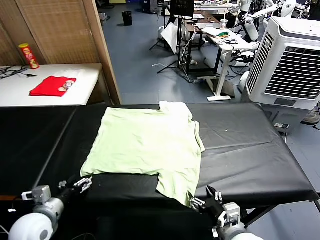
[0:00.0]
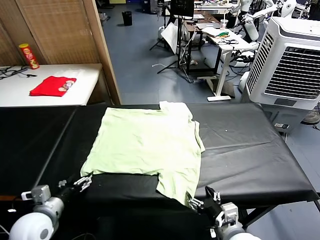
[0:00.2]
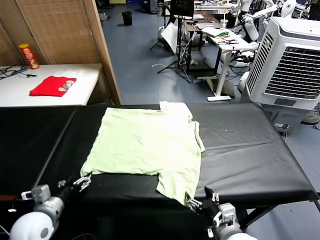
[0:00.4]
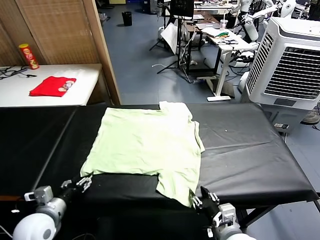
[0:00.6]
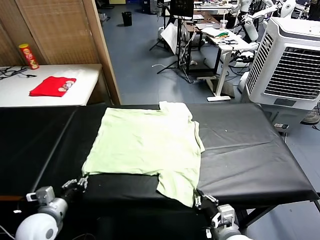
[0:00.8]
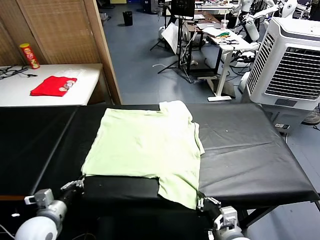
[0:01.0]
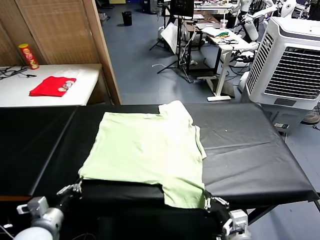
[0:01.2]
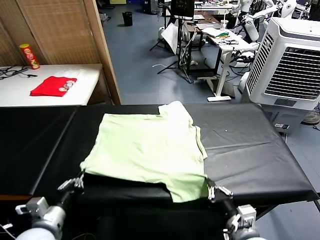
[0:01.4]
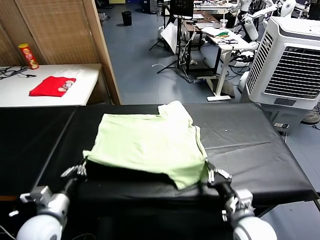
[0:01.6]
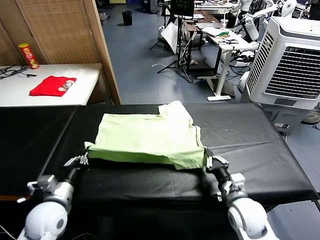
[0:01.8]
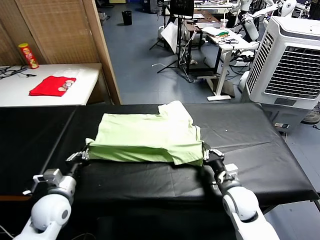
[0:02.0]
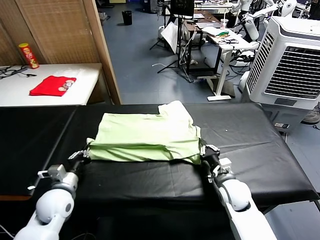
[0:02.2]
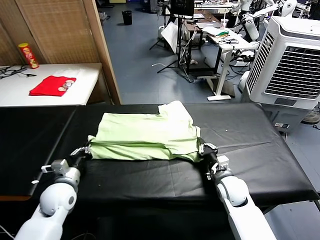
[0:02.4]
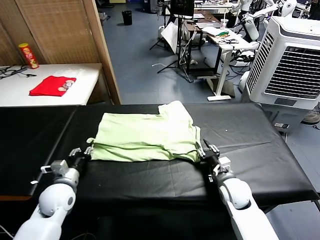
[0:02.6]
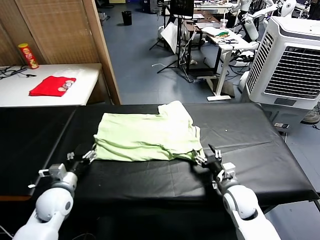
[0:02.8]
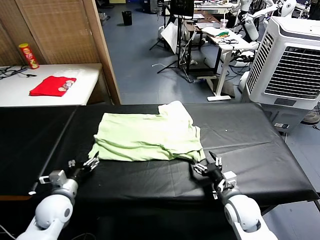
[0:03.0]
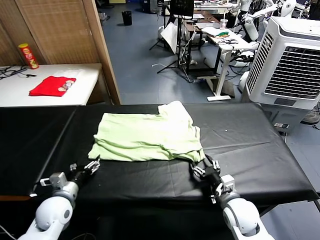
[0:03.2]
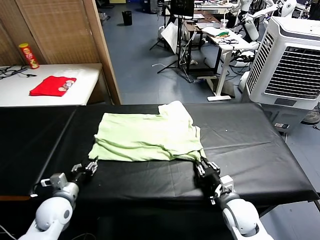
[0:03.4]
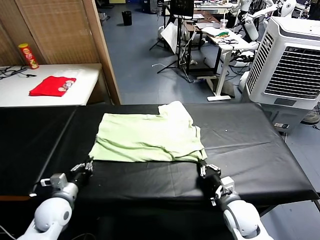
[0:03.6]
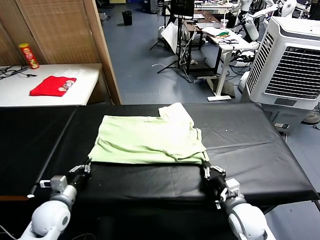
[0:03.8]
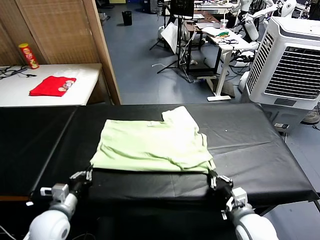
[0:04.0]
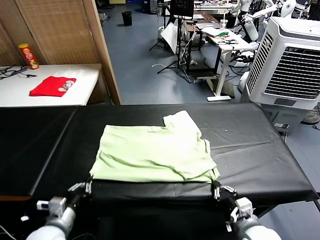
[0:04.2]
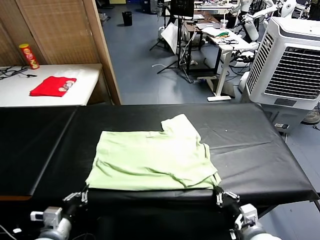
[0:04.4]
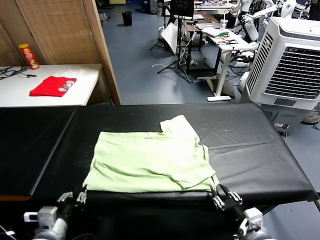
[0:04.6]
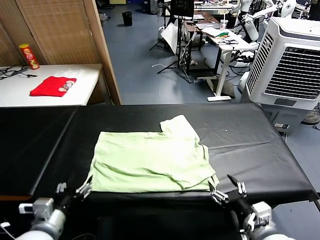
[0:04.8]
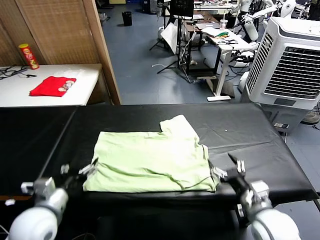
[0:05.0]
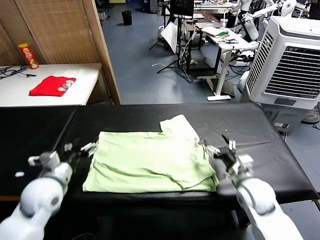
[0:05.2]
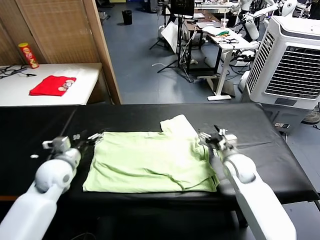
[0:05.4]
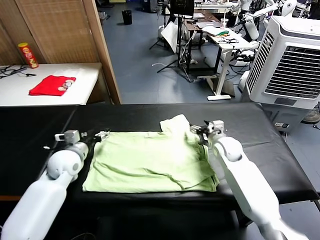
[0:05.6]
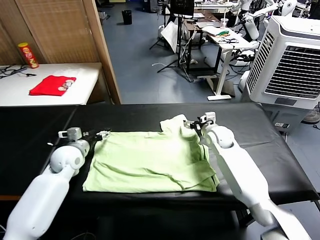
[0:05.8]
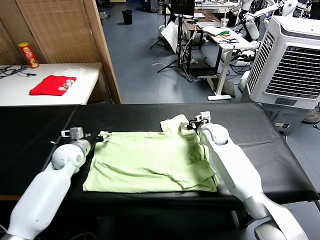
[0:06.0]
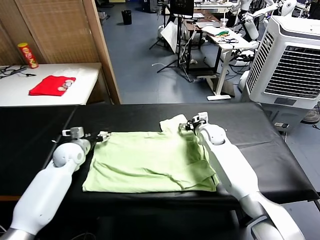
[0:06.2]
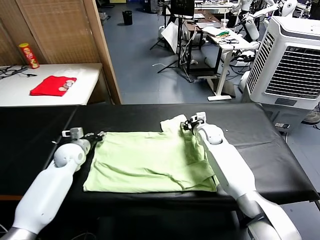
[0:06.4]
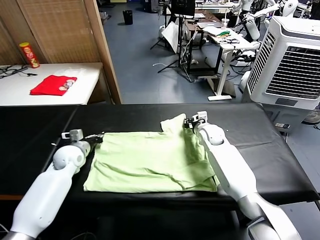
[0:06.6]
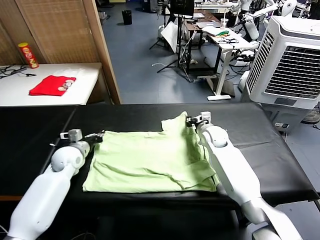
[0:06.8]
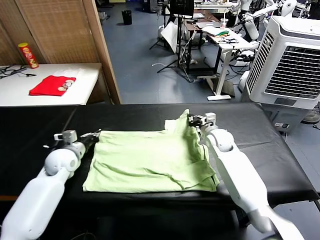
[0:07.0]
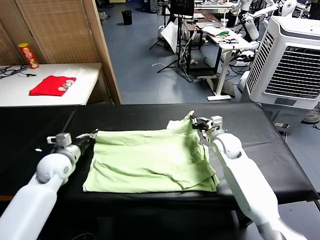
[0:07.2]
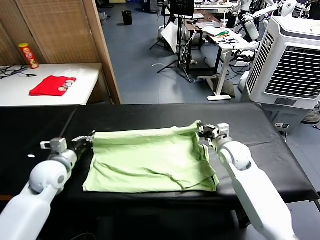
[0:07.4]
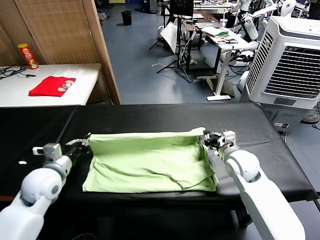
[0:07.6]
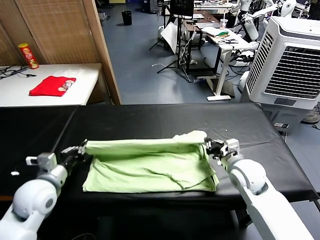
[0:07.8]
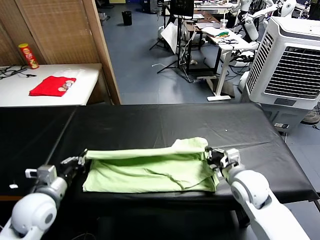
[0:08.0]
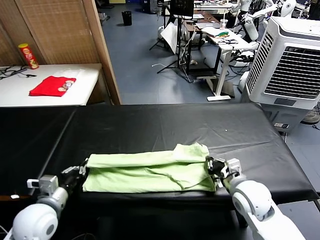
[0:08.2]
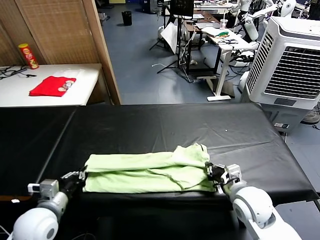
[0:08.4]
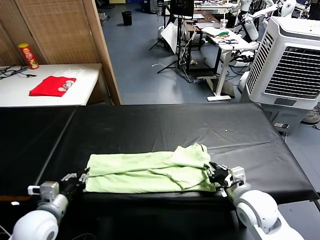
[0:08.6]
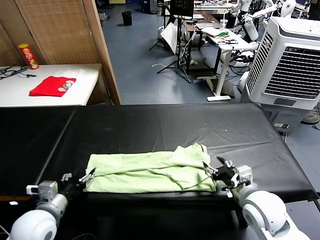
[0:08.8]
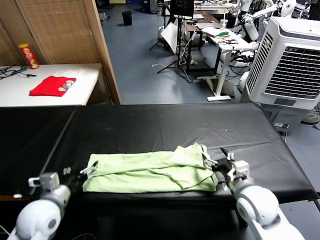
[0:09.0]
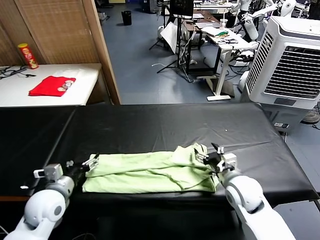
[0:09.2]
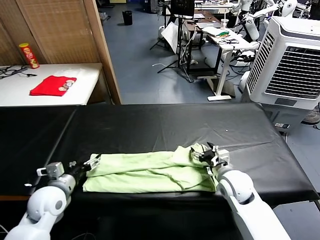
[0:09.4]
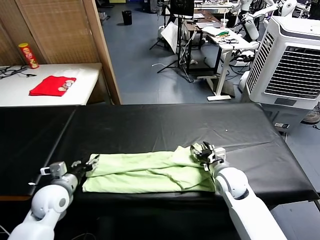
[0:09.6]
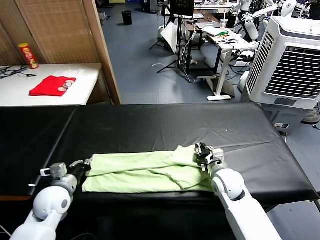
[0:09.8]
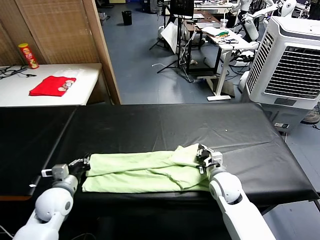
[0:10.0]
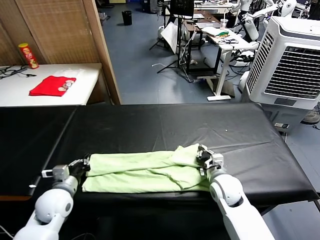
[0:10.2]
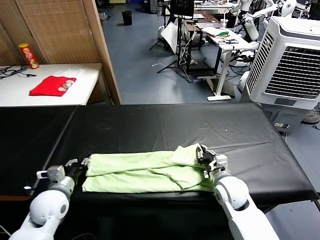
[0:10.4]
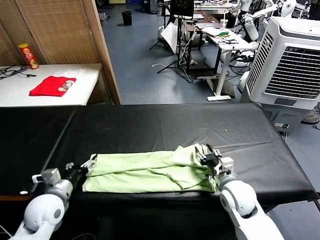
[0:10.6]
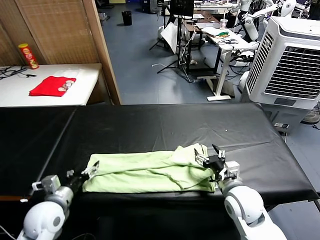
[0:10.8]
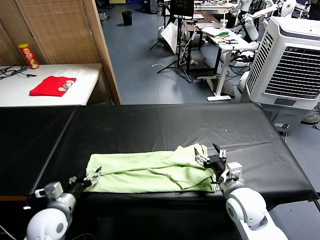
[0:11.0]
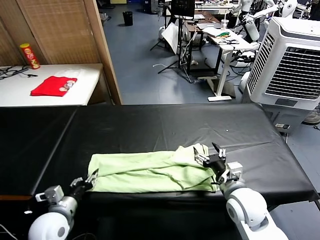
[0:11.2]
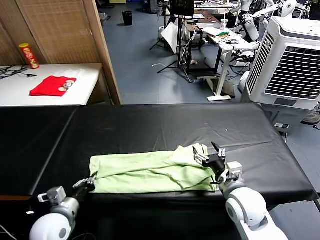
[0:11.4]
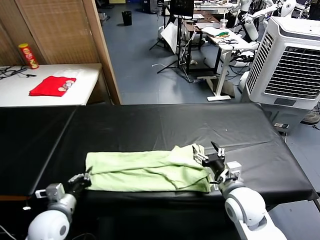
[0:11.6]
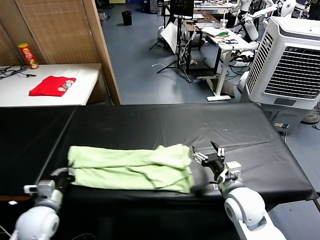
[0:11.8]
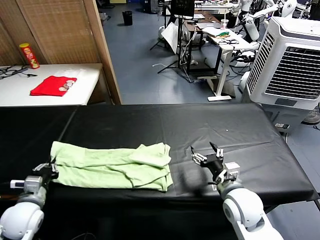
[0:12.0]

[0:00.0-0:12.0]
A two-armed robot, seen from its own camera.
Task of the whole recording: fold and organize the clothes.
Step, 0:00.0 to 0:01.0: use both grippers simultaneously to clamp the lower edge of the clothing fabric.
Step, 0:01.2 to 0:02.6: use both grippers to drag the lower edge of the fabric forward and fold it over the upper edge.
Step, 0:03.0 to 0:04.6: Drag the clothes downward with both gripper.
Step, 0:04.8 to 0:06.4: use both grippers simultaneously to clamp the upper edge of the clothing fabric.
Step, 0:06.8 to 0:08.8: use both grippers to drag the upper edge of the fabric backward and fold it over the lower edge.
Step, 0:09.0 to 0:11.2: use the left gripper to clamp the left edge of the fabric.
0:01.6 to 0:03.0: The left gripper moves downward and forward, some 10 cm, and opens; the right gripper reaches some 10 cm forward, then returns, and opens up.
0:03.0 to 0:04.4: The left gripper goes about 15 cm backward, and closes up, while the right gripper moves backward and upward, roughly 15 cm, and closes, then reopens.
0:04.4 to 0:06.0: Both grippers travel together forward, approximately 35 cm. The left gripper opens its fingers. The right gripper opens up.
0:06.0 to 0:07.6: The right gripper moves backward, about 20 cm, and closes; the left gripper travels backward and upward by about 15 cm, and closes.
0:07.6 to 0:09.0: The grippers both shift backward by some 5 cm. The left gripper opens its fingers, while the right gripper opens.
0:09.0 to 0:10.4: The left gripper shifts by approximately 5 cm, and closes. Meanwhile the right gripper closes its fingers.
0:10.4 to 0:12.0: The left gripper heads to the left, covering about 5 cm, and closes its fingers. The right gripper shifts approximately 5 cm backward, and opens.

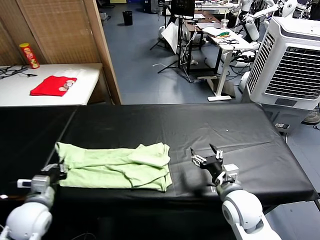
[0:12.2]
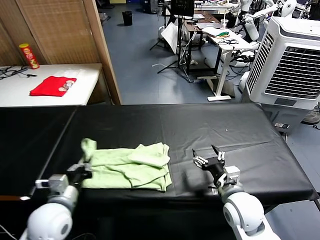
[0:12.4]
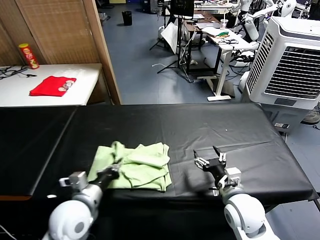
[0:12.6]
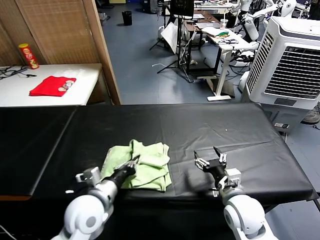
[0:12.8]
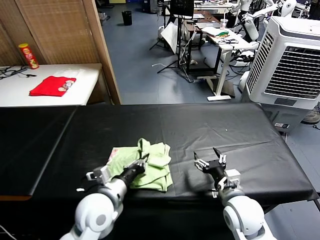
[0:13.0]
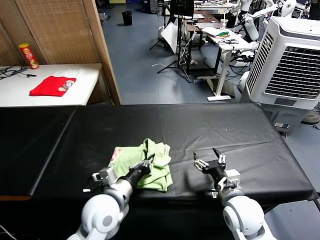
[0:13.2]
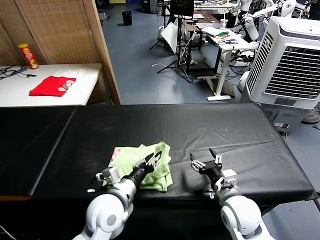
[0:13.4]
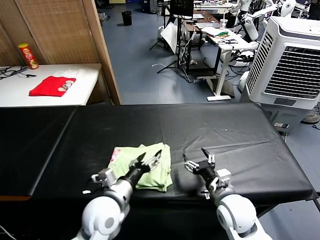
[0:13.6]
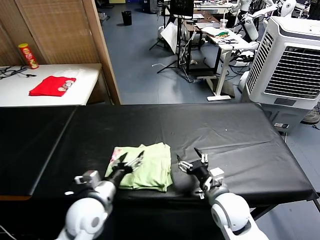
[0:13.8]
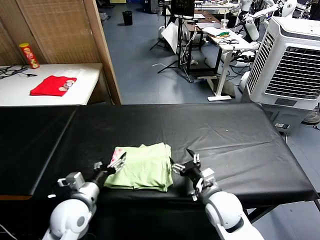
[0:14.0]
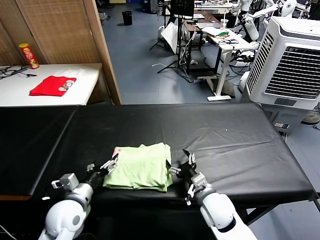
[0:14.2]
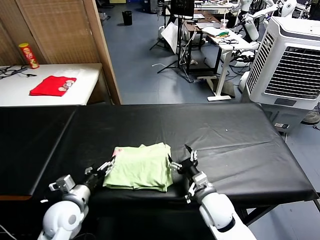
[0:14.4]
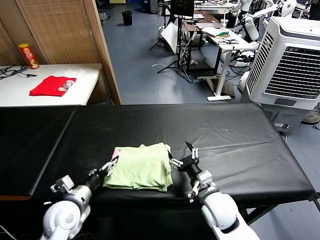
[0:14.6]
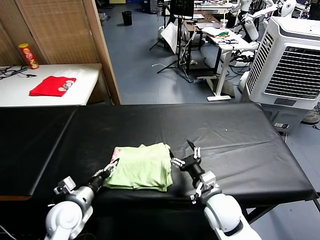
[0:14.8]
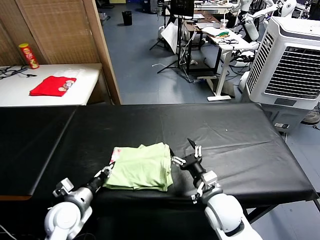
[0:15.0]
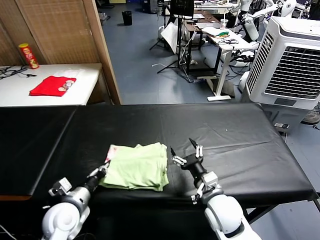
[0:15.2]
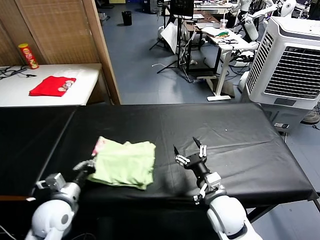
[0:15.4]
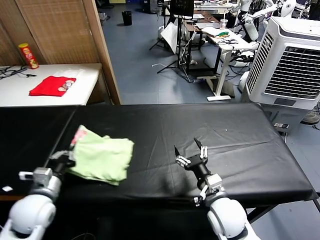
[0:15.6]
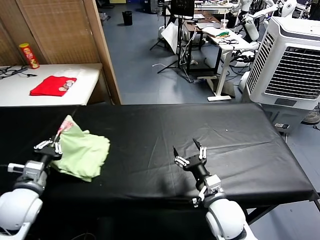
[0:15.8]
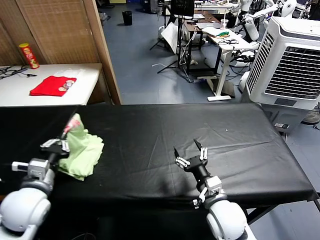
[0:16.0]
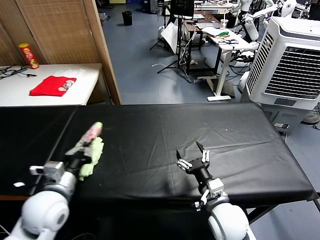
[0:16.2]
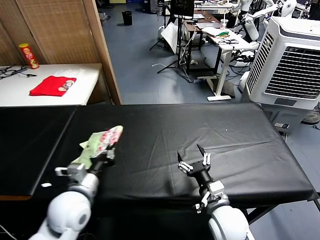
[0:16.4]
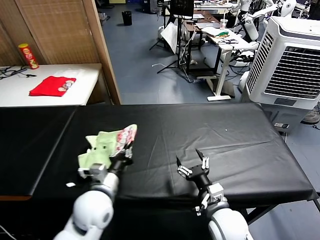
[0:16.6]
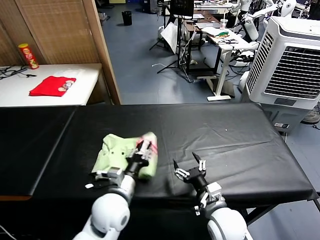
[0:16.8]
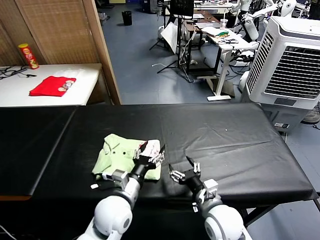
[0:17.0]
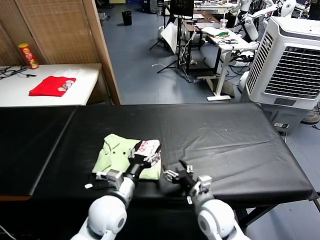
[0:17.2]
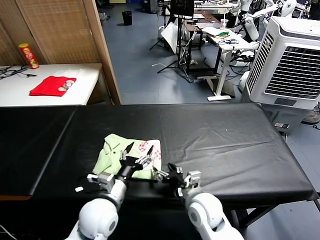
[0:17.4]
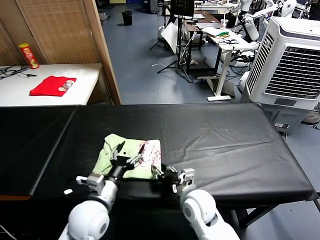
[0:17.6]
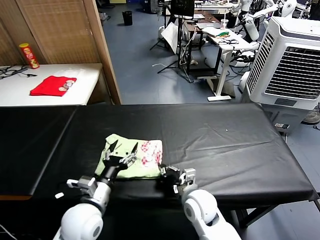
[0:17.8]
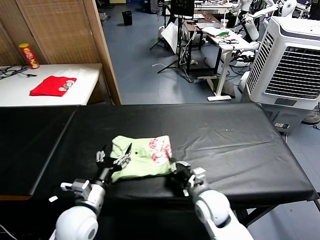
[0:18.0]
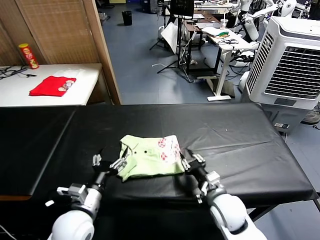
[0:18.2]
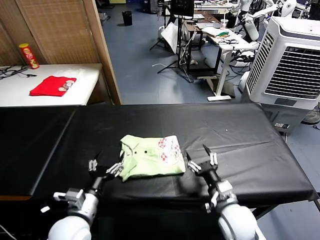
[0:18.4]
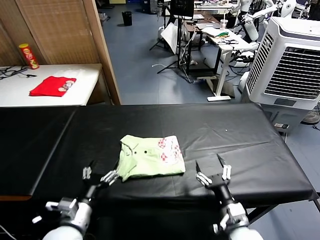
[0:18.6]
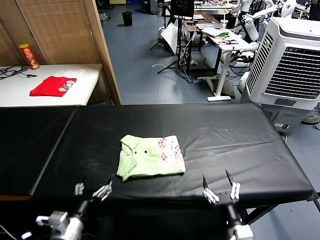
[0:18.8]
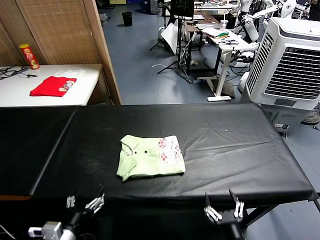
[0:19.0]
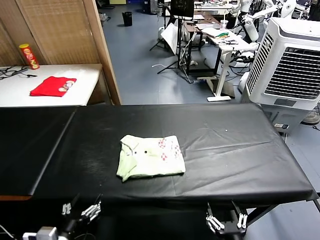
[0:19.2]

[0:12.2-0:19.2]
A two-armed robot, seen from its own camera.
Task of the whole recording: fold and organize the clothes.
Step, 0:12.2 to 0:13.4: use the left gripper to drag the left edge of the fabric to the left and folds it over the right edge.
Step, 0:13.6 to 0:16.8: Flip the folded clothes over with left gripper.
Step, 0:17.0 to 0:18.2: Drag the clothes to the center of the table.
0:12.2 to 0:13.6: The left gripper heads to the right, covering roughly 20 cm, and opens.
0:13.6 to 0:15.0: The left gripper is displaced to the left and downward by about 15 cm, and closes up.
0:15.0 to 0:16.4: The left gripper is displaced upward by approximately 10 cm.
0:16.4 to 0:17.8: The left gripper opens its fingers; the right gripper is displaced to the left and forward by approximately 10 cm, and closes.
0:17.8 to 0:19.2: The left gripper travels backward and to the left by some 15 cm; the right gripper is displaced backward and to the right by roughly 25 cm, and opens its fingers.

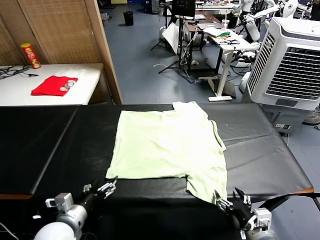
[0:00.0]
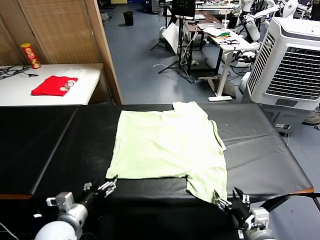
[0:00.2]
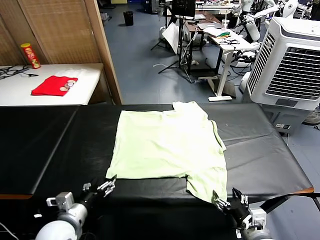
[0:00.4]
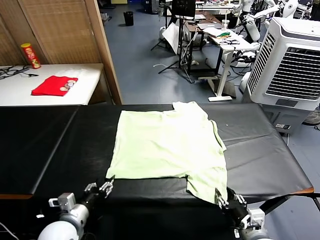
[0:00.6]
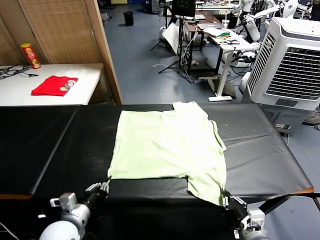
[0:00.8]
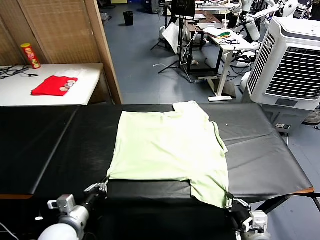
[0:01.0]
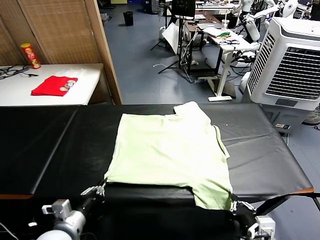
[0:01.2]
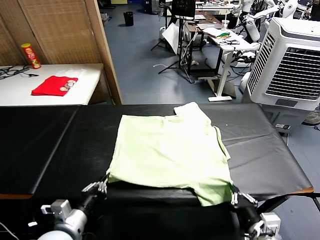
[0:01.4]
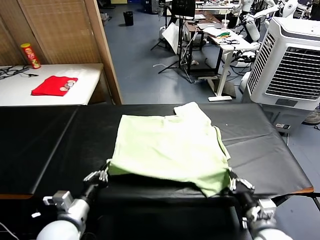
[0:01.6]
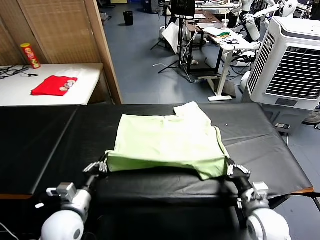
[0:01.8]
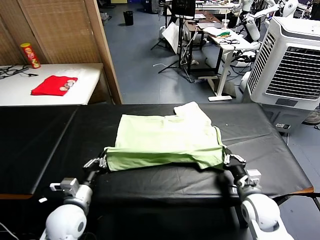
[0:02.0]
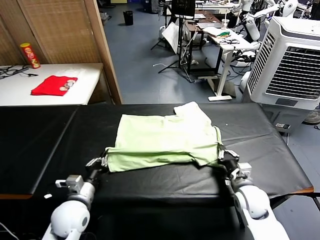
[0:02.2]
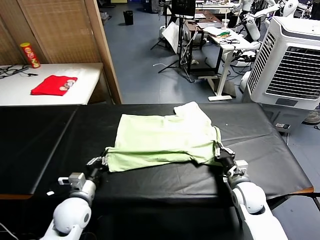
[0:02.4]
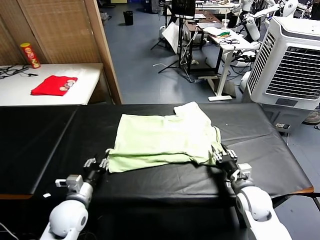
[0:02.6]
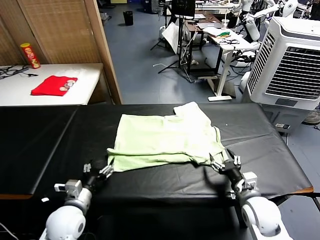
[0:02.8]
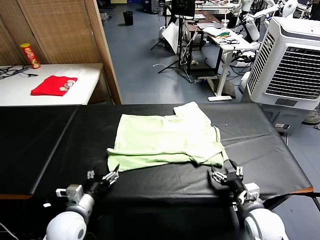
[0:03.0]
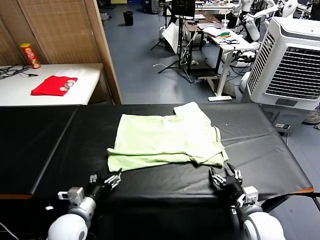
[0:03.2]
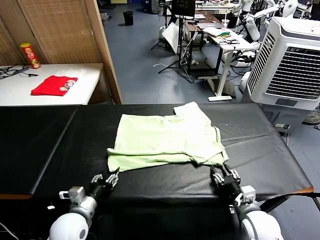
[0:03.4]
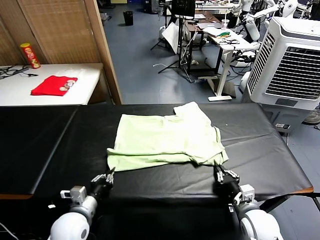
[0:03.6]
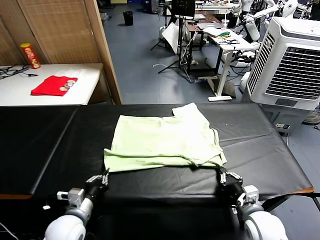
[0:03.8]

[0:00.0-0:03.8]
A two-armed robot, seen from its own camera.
Task of the whole recording: fold and organize the clothes.
Step, 0:00.0 to 0:00.8: use both grippers simultaneously to clamp the lower edge of the clothing fabric.
Step, 0:01.2 to 0:02.6: use both grippers to drag the lower edge of the fabric forward and fold it over the upper edge.
0:01.2 to 0:02.6: The right gripper goes approximately 15 cm forward, and opens up, while the left gripper is displaced forward by about 10 cm, and opens.
0:02.6 to 0:03.8: The left gripper closes. Meanwhile the right gripper goes roughly 5 cm backward, and closes its fingers.
